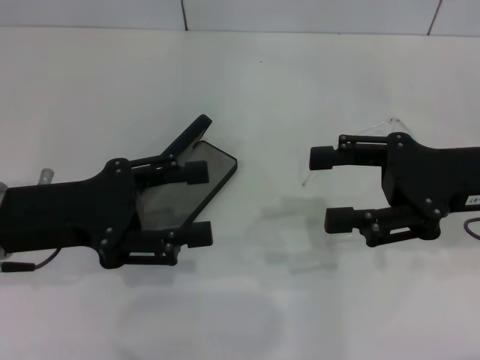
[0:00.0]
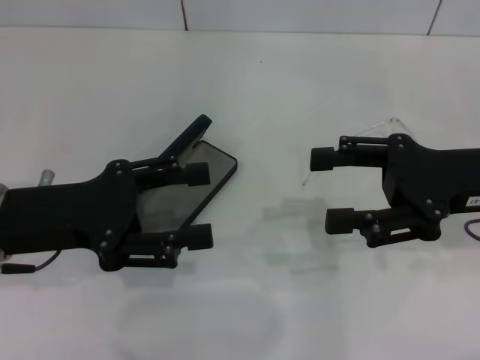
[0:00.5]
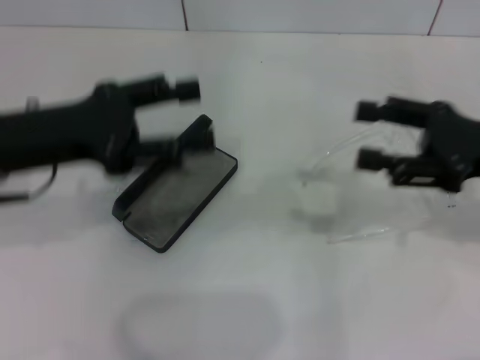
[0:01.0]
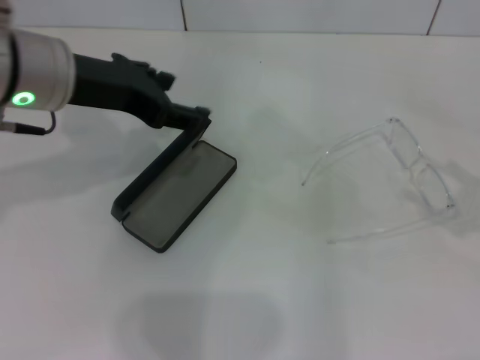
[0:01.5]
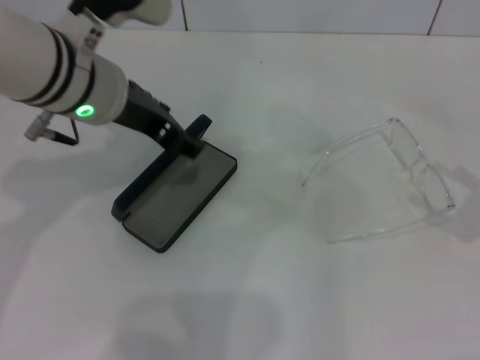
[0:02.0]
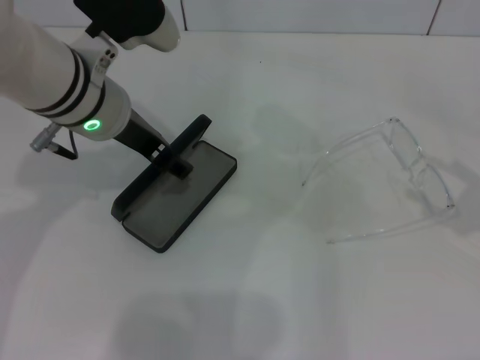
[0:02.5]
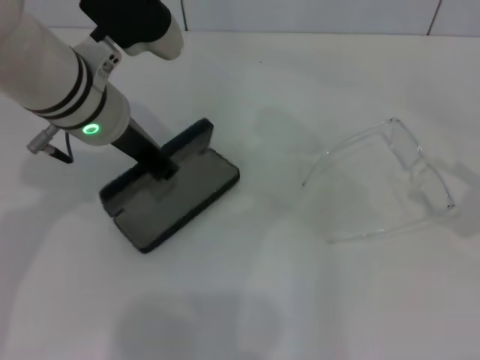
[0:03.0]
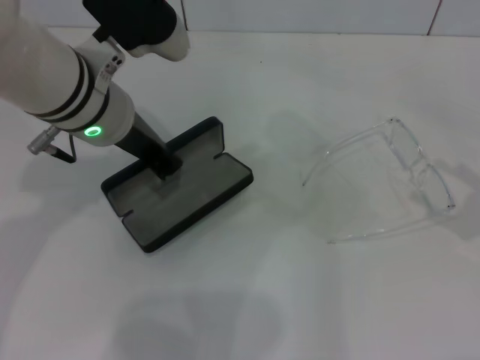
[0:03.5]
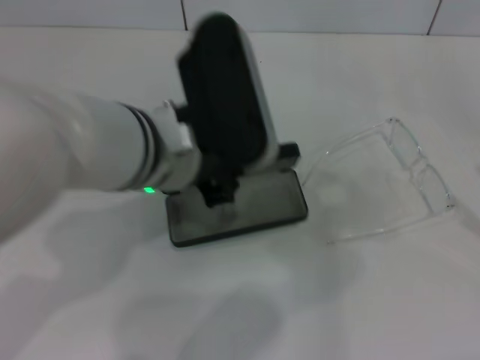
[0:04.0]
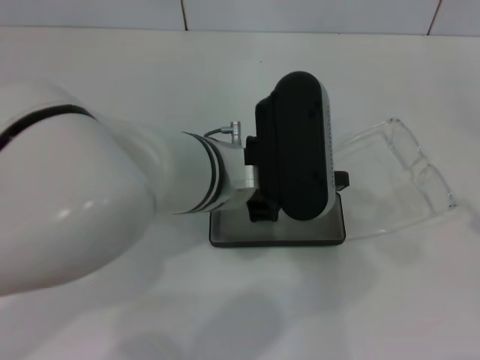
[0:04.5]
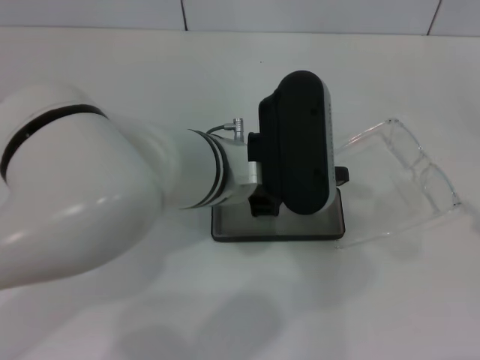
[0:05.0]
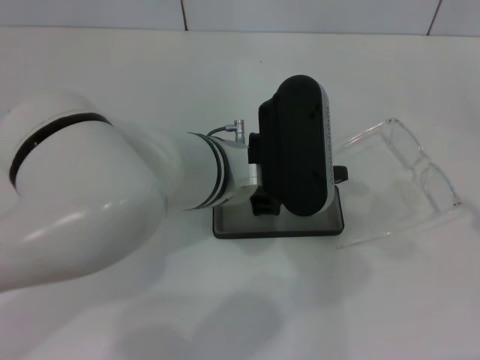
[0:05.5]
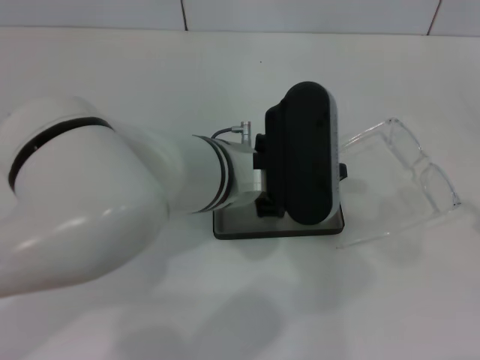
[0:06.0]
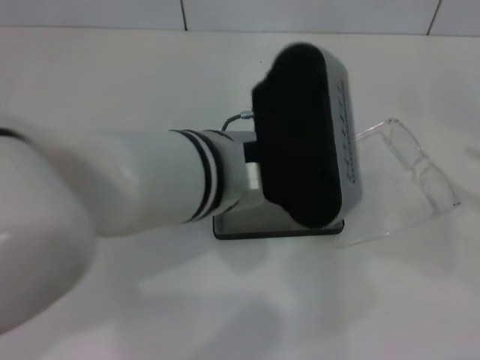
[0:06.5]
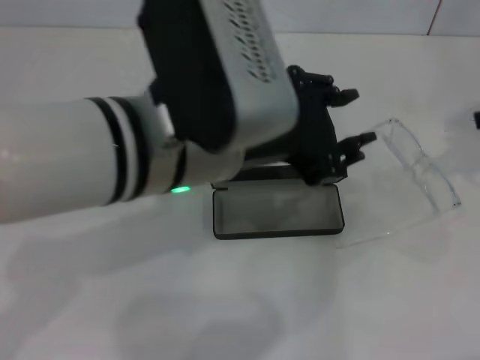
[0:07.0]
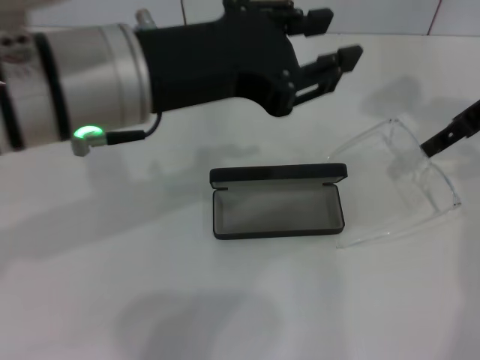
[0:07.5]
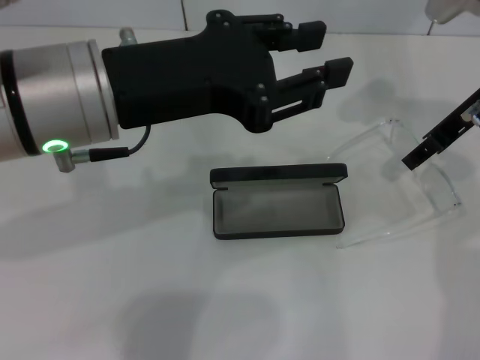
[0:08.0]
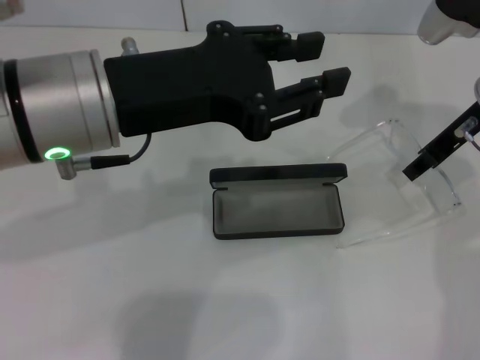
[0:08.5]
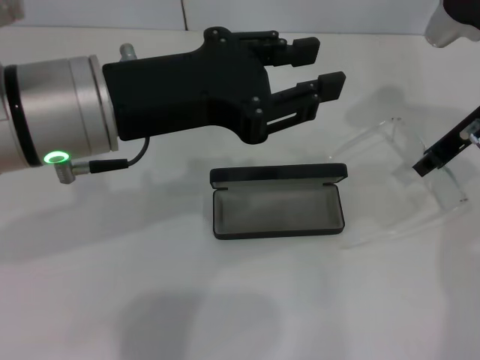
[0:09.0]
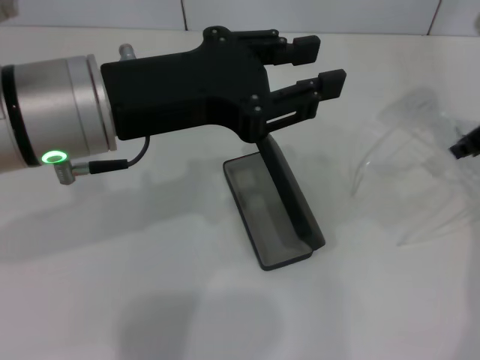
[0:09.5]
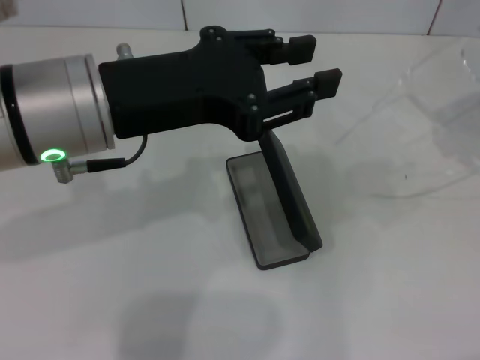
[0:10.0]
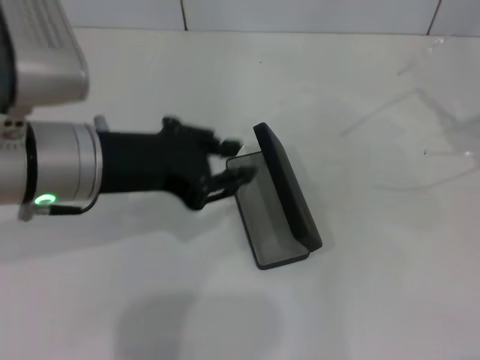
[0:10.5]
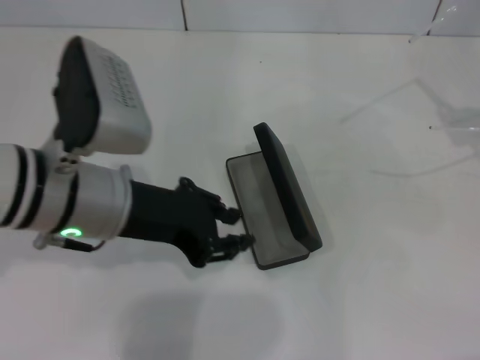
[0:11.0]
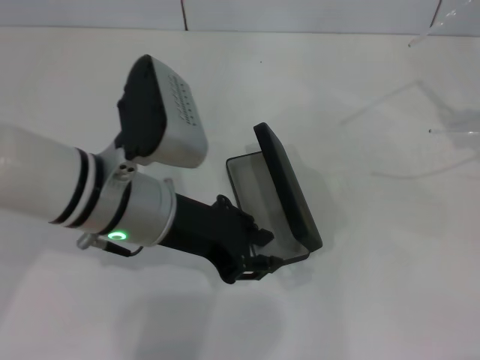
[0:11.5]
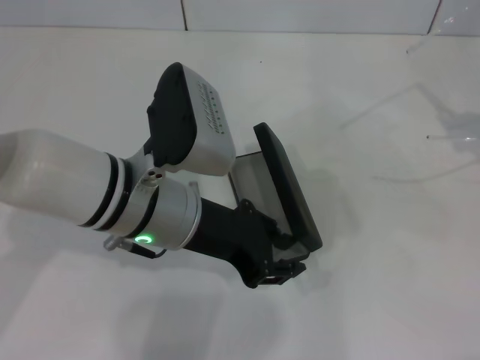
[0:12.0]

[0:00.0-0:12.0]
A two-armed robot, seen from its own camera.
Step, 0:00.0 to 0:03.0: Grab the glasses case with your left hand.
Step, 0:03.5 to 0:06.5: Place the glasses case in the center of the table with your left hand.
Step, 0:07.0 to 0:09.0: Grab the eyeglass frame with your right hand.
0:00.0 to 0:02.0: The right gripper goes some 15 cm to the right and backward. The left gripper shifts approximately 15 cm to the right, forward and upward.
0:02.0 to 0:04.0: The left gripper moves backward and to the right, roughly 10 cm, and closes up.
0:04.0 to 0:06.0: The left gripper shifts by some 5 cm.
0:06.0 to 0:08.0: The left gripper heads to the left and upward, covering approximately 15 cm. Meanwhile the right gripper heads forward and to the left, covering approximately 30 cm.
0:08.0 to 0:10.0: The right gripper goes roughly 10 cm to the right, and closes its fingers.
0:10.0 to 0:12.0: The right gripper moves some 5 cm, while the left gripper travels downward by about 10 cm.

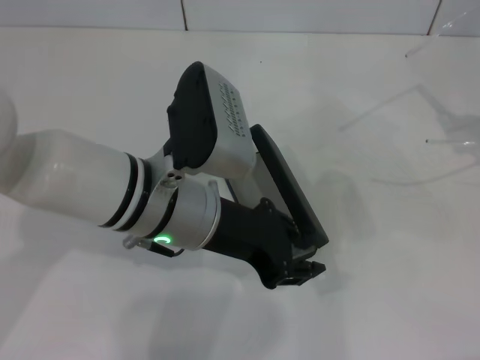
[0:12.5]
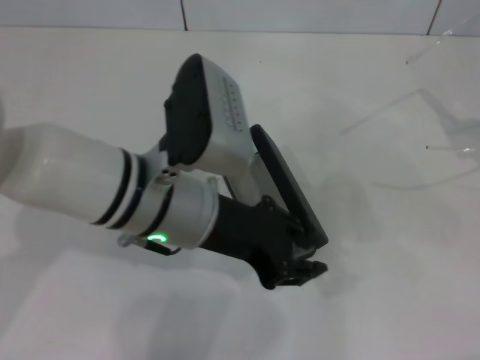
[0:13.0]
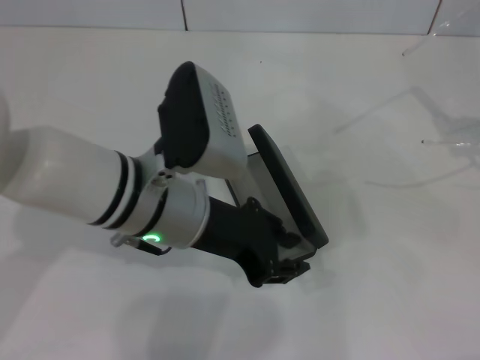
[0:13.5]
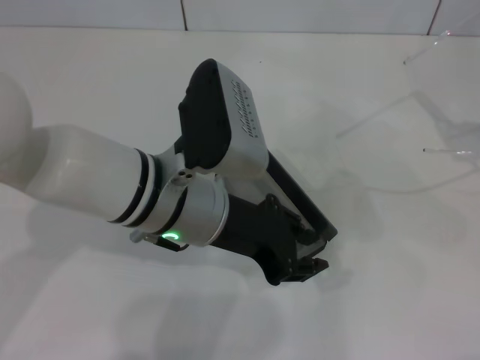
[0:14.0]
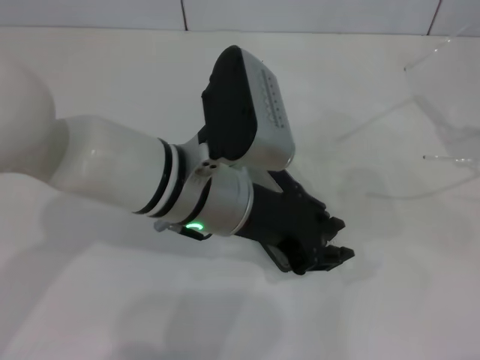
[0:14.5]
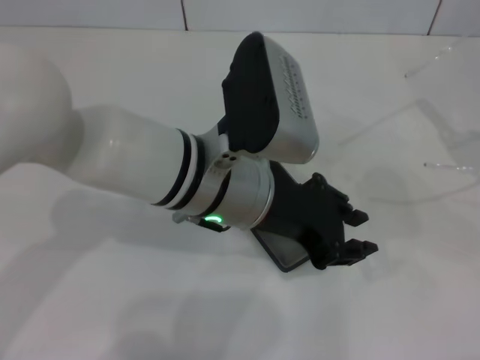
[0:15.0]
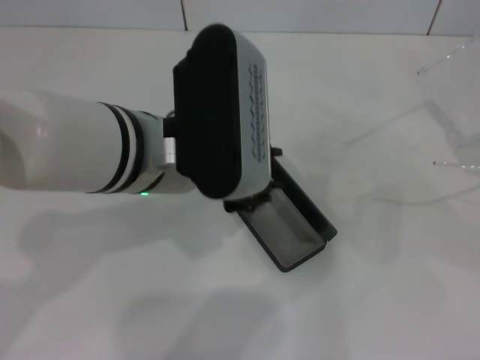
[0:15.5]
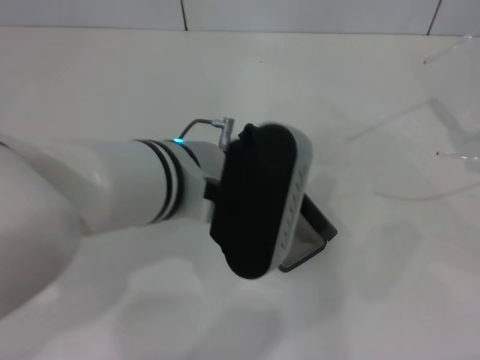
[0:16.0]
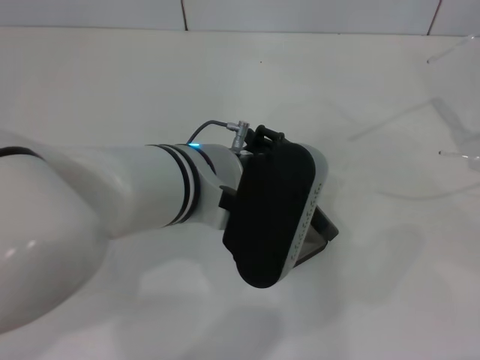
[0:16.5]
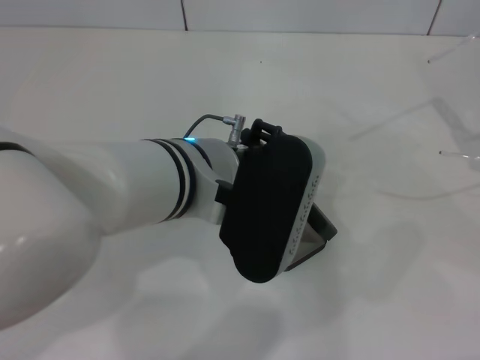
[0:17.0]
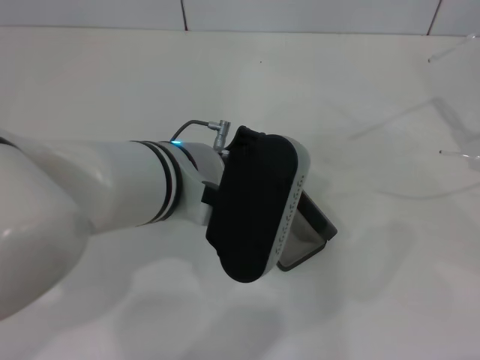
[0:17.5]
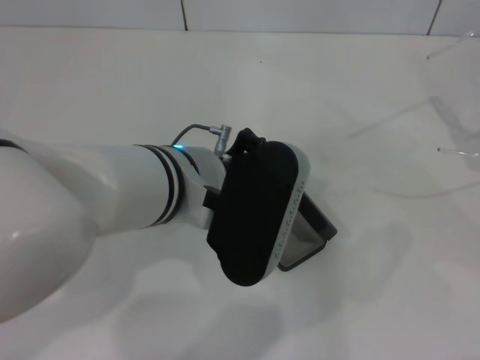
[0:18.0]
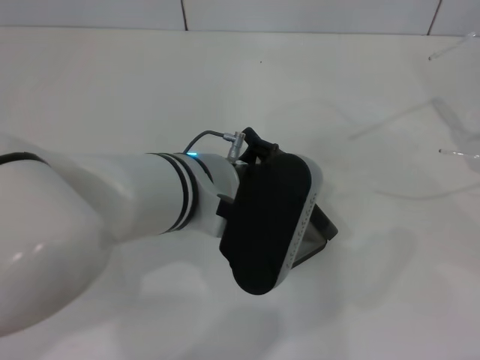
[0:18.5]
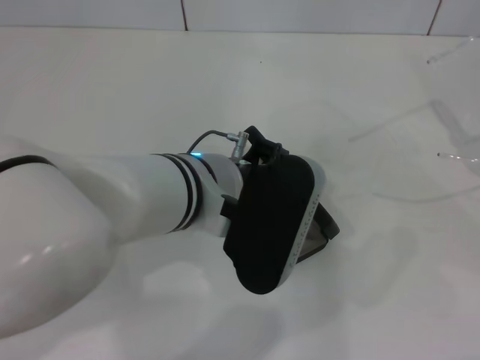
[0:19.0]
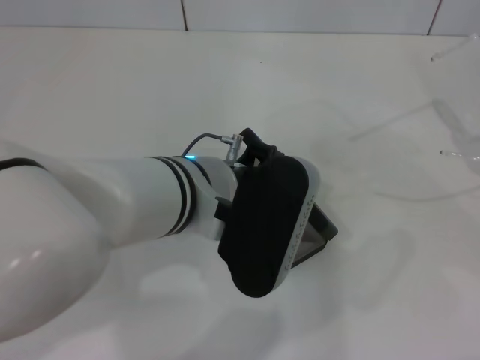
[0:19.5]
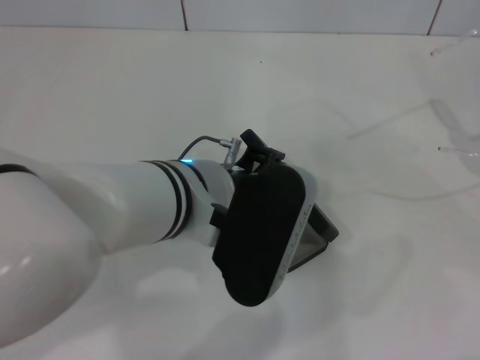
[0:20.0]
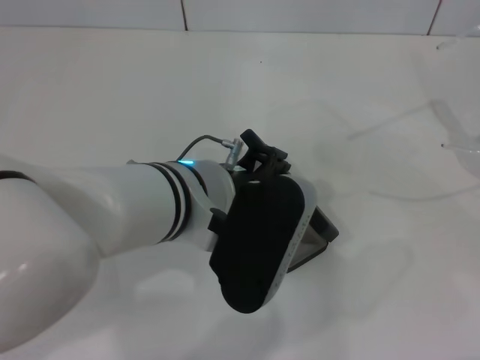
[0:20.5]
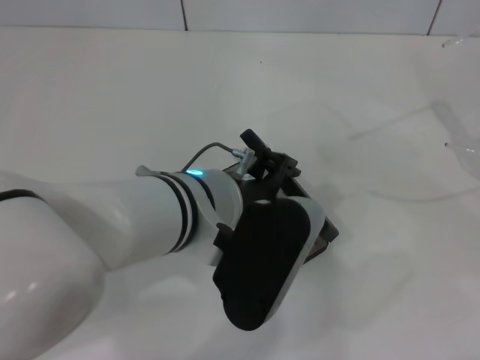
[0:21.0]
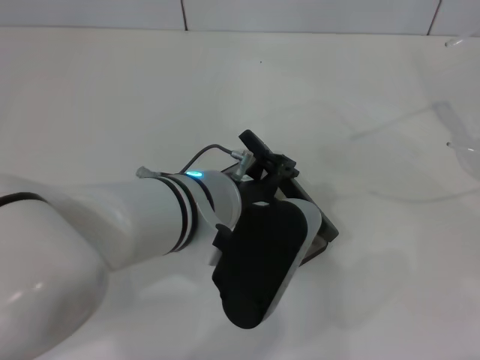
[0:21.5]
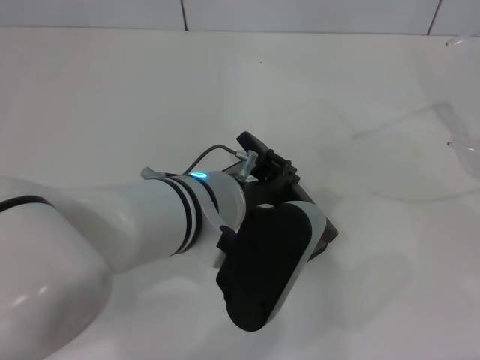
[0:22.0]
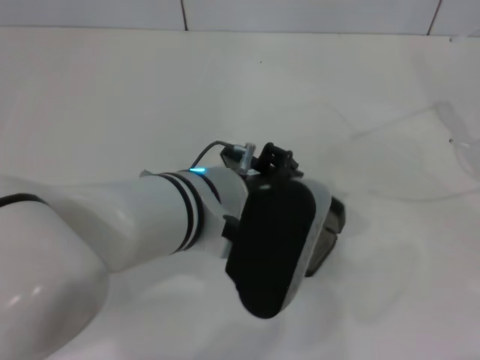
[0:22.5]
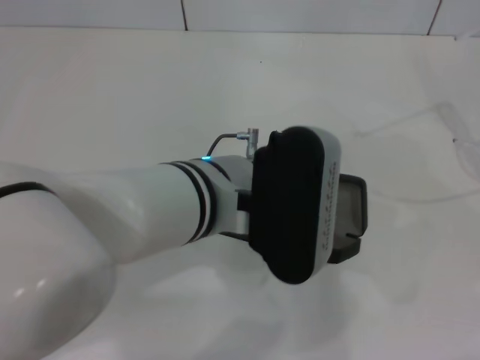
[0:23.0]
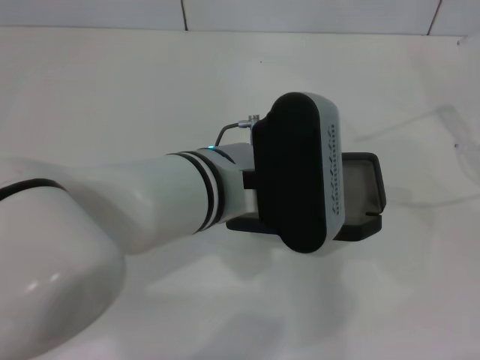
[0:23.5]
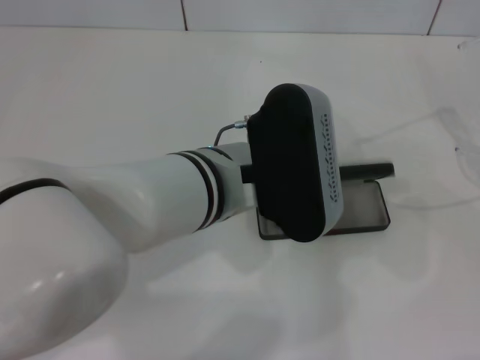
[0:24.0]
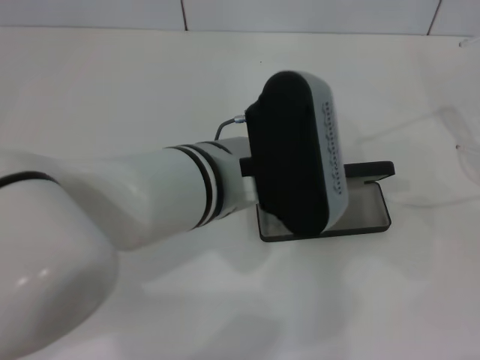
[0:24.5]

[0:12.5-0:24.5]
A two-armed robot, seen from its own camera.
0:12.5 to 0:14.5: There are only small adjustments of the grippers.
0:16.5 to 0:18.5: Both grippers stay about where they are.
0:18.5 to 0:20.5: Both grippers stay about where they are.
0:20.5 to 0:22.5: The left gripper closes up.

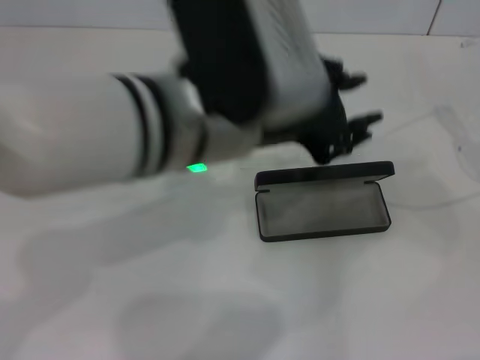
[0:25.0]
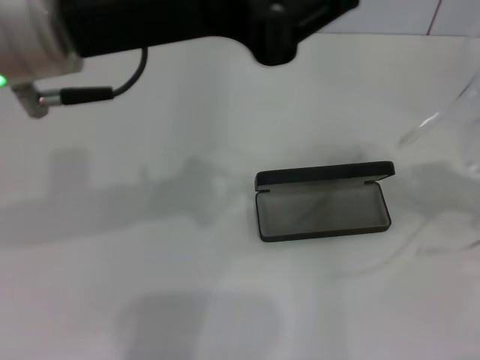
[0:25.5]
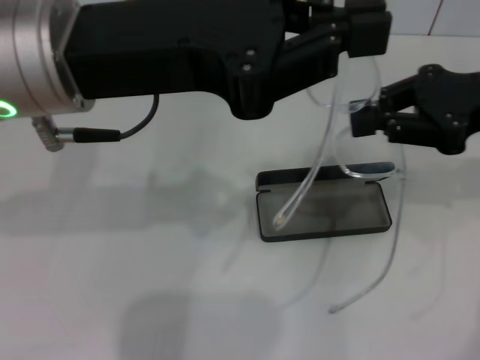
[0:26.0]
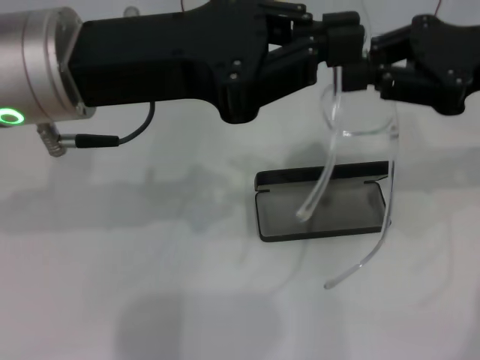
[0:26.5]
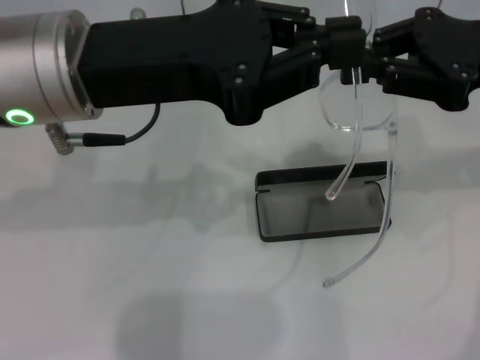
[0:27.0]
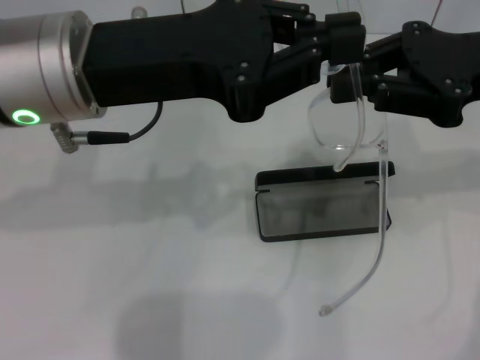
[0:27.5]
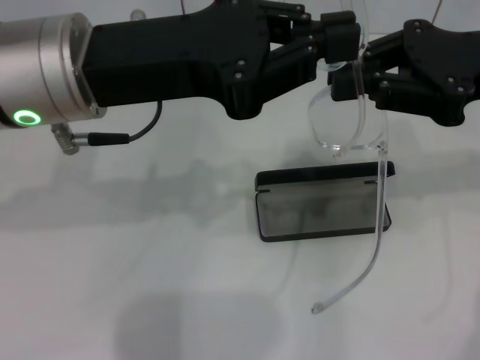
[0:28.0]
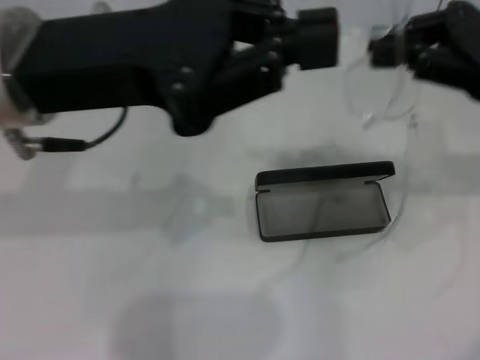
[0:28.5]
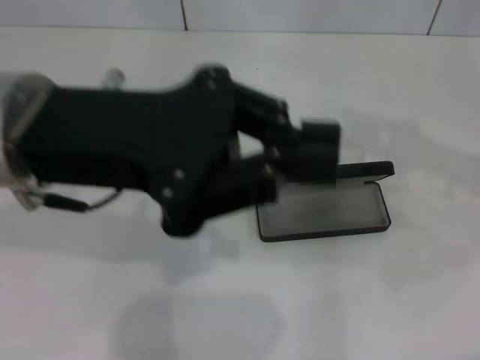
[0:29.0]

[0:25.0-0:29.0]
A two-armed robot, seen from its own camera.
0:25.0 to 0:27.0: The left gripper shifts approximately 10 cm to the left, and closes up; the right gripper moves to the left, approximately 15 cm.
0:27.0 to 0:29.0: The right gripper heads to the right, covering some 10 cm.
